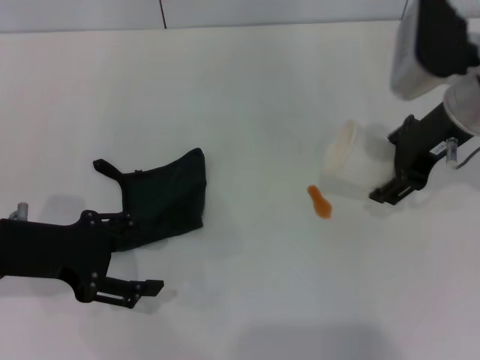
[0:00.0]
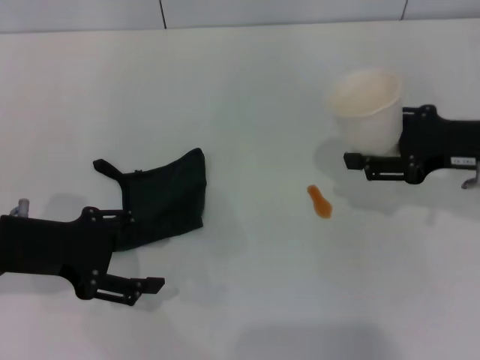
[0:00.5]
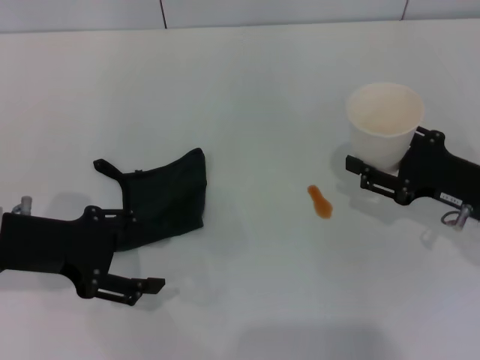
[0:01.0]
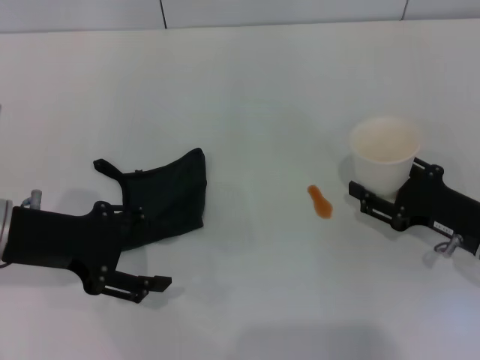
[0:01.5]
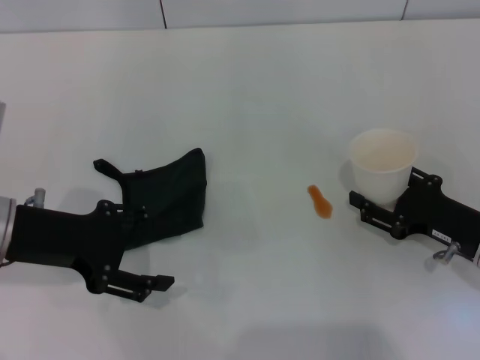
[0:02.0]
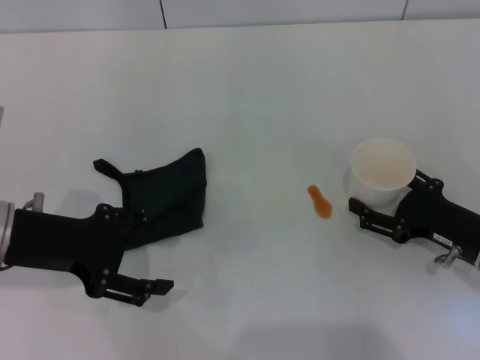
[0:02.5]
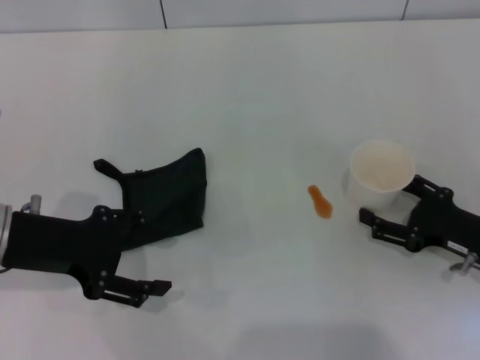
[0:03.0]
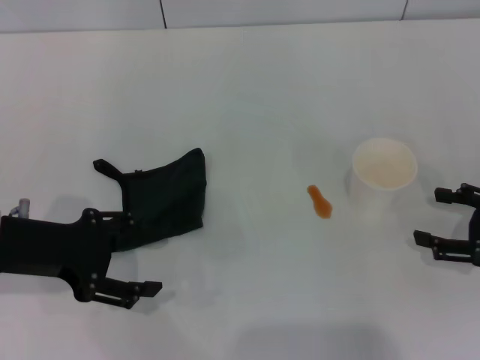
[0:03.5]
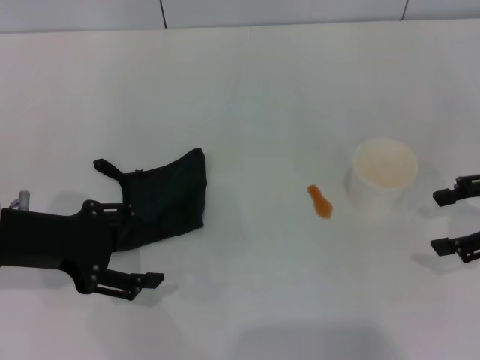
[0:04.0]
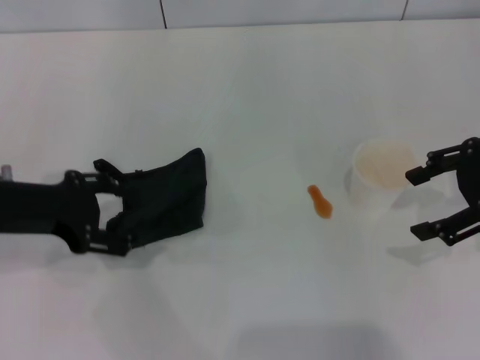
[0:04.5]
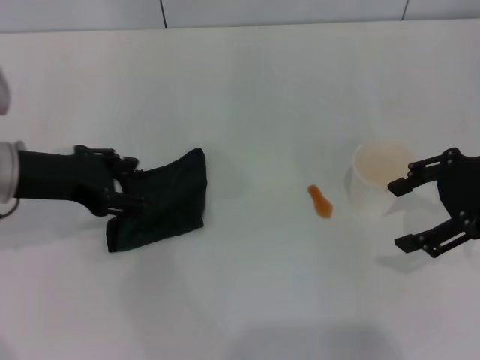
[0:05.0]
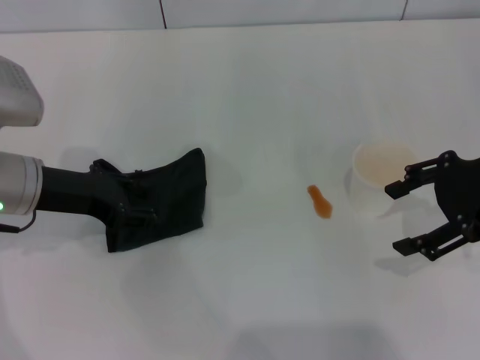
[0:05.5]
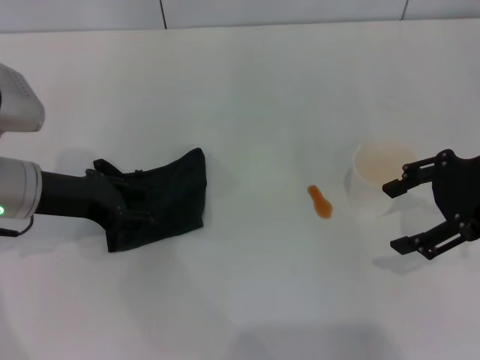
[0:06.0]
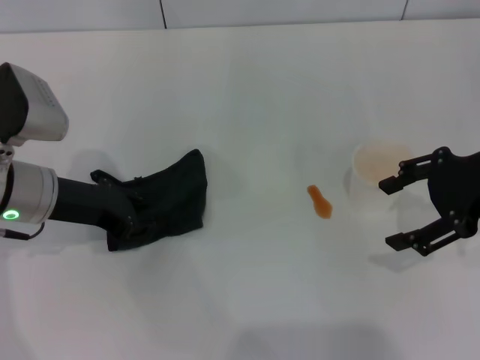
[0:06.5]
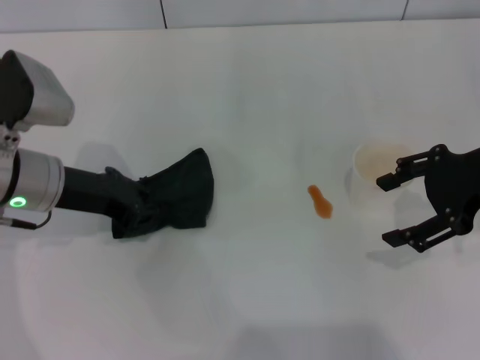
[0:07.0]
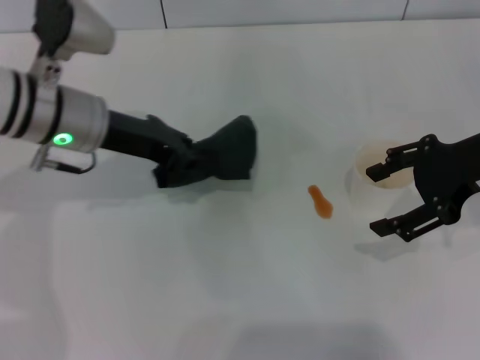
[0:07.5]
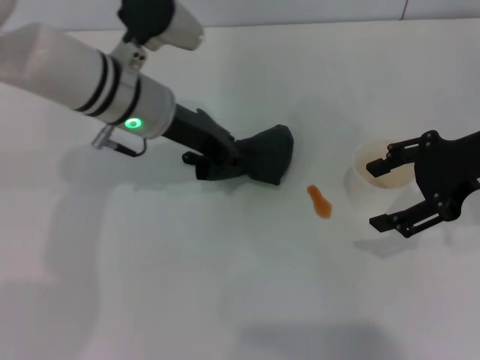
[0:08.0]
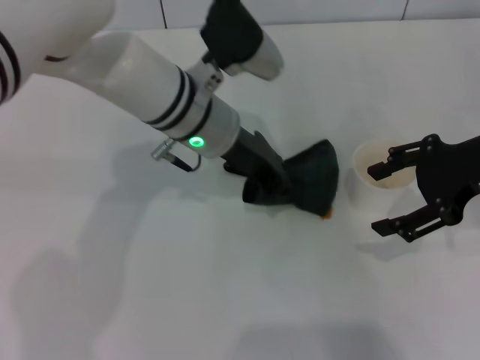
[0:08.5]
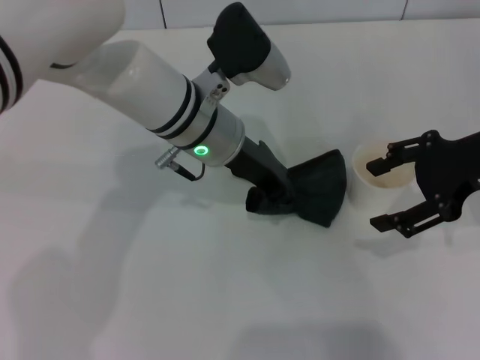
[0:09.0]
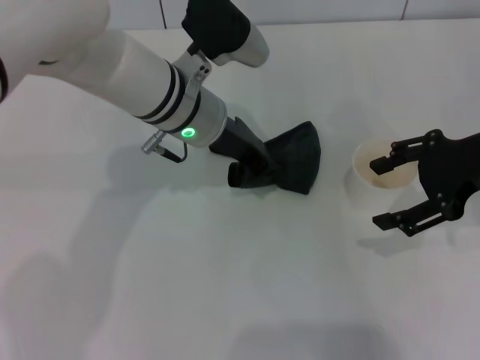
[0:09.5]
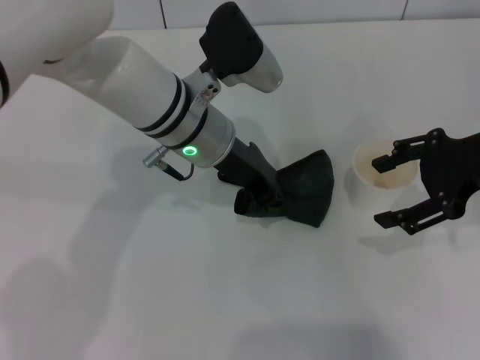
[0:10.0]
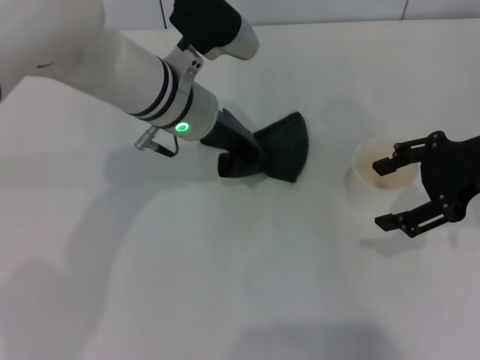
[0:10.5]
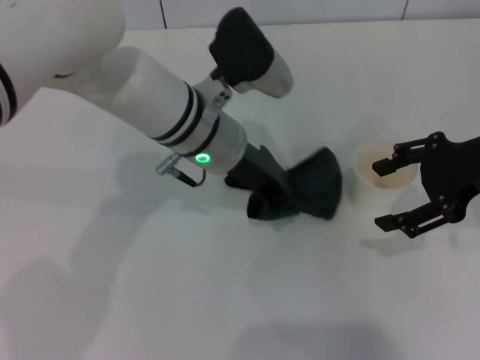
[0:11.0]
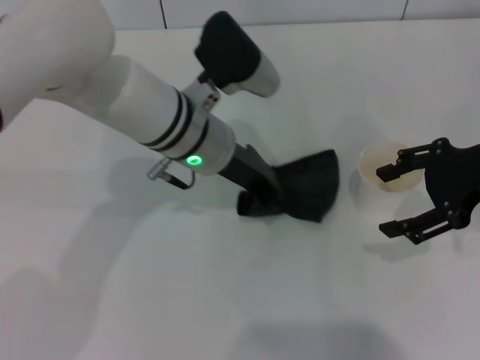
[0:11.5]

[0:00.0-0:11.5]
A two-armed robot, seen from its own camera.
Step, 0:00.0 to 0:03.0: Stand the paper cup upright with the right gripper.
Step, 0:03.5 to 0:06.0: Grasp the rag with the left gripper.
Step, 0:06.5 to 0:10.5: Wipe the stains off the table with the left gripper.
0:00.0 to 0:02.0: The right gripper travels downward, backward and to the right by approximately 20 cm, and opens up.
0:02.0 to 0:04.0: The right gripper goes approximately 15 cm upward and to the right.
0:04.0 to 0:06.0: The right gripper moves to the left, roughly 5 cm. Meanwhile the left gripper heads forward, covering about 5 cm.
0:06.0 to 0:07.5: The left gripper shifts some 5 cm to the right, and closes.
0:07.5 to 0:09.5: The left gripper is displaced to the right by some 10 cm.
0:09.5 to 0:11.5: The grippers move only a little.

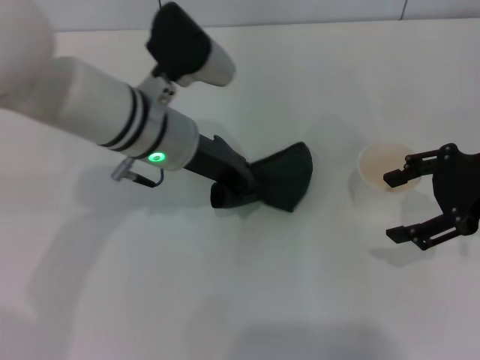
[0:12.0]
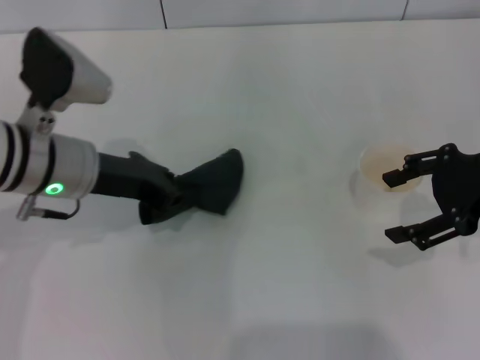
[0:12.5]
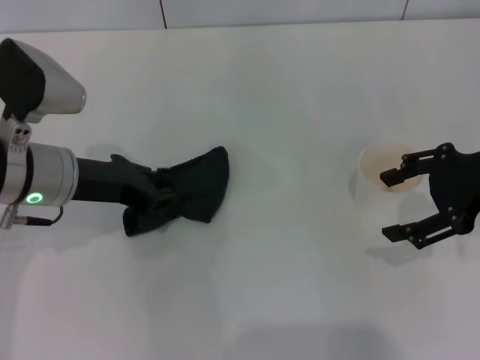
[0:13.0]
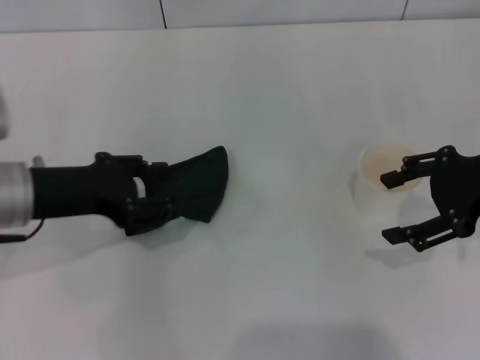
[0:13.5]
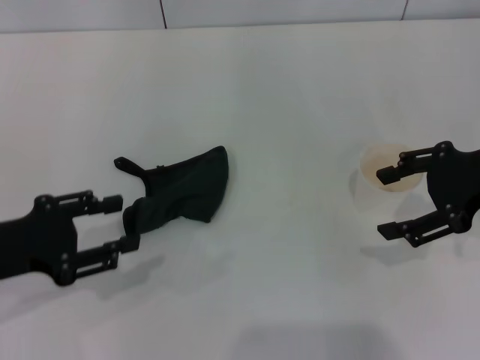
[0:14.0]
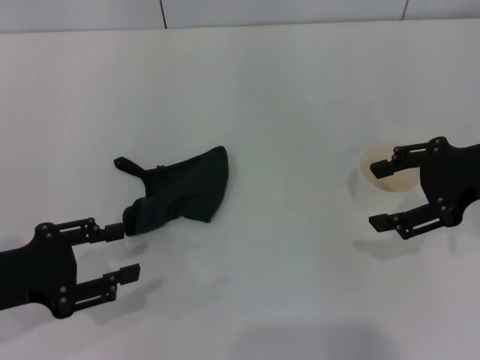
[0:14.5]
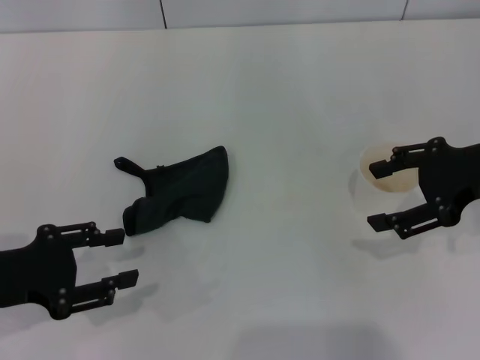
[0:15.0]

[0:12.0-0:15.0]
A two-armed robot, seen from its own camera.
Step, 0:12.0 to 0:13.5: Place the rag on the table with the left gripper.
0:12.0 to 0:13.5: The left gripper is displaced to the left and backward by approximately 15 cm, and opens up.
0:13.5 to 0:15.0: The left gripper travels backward and to the left by approximately 10 cm.
